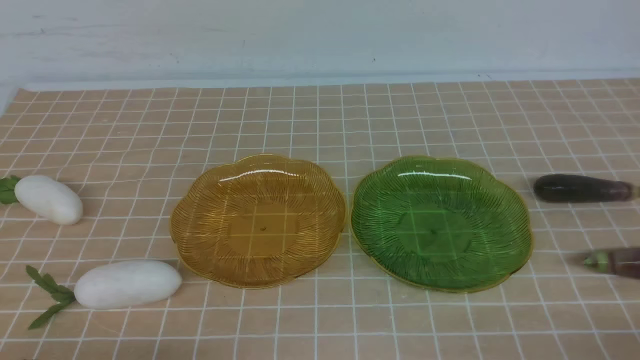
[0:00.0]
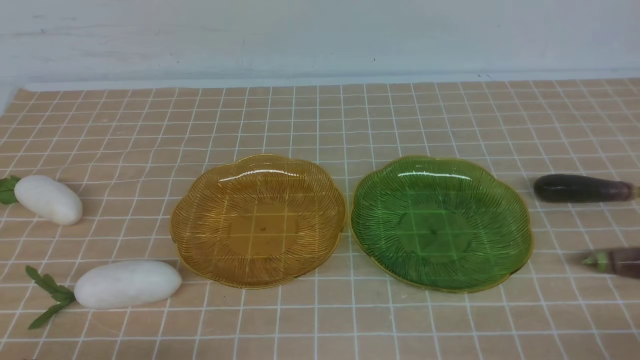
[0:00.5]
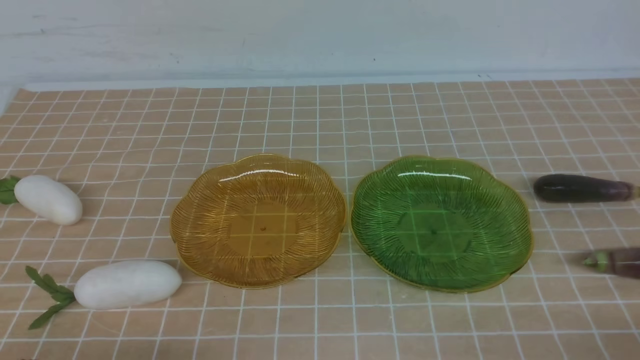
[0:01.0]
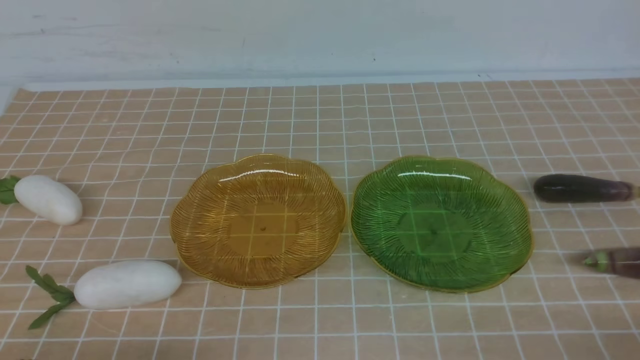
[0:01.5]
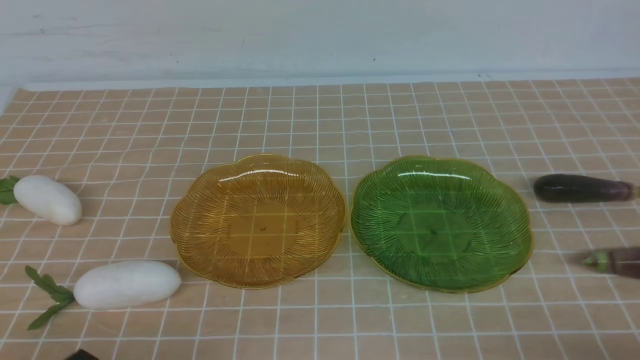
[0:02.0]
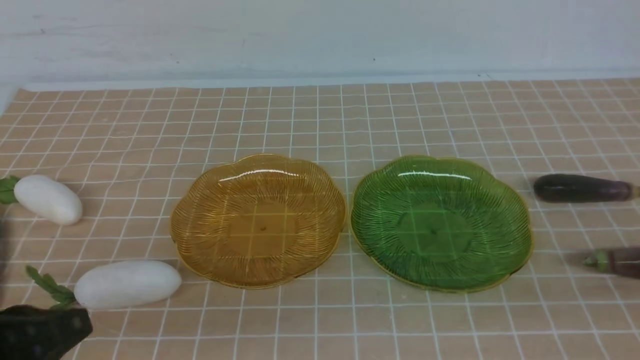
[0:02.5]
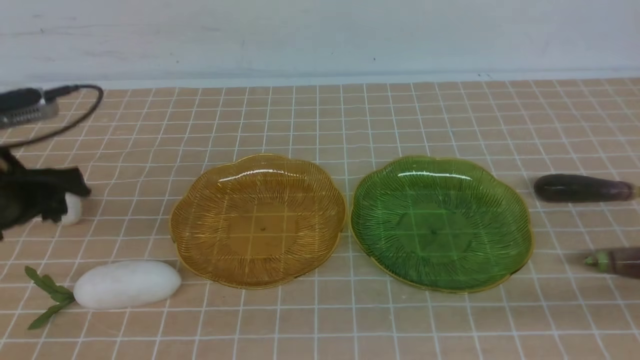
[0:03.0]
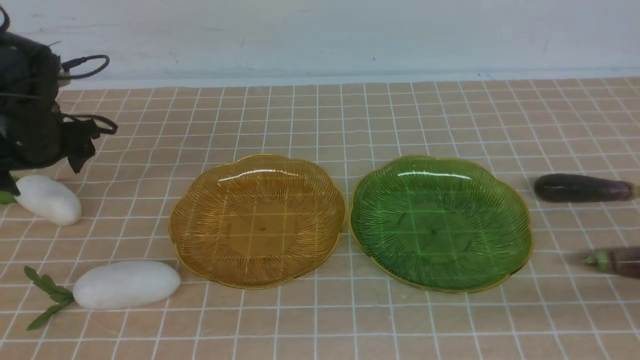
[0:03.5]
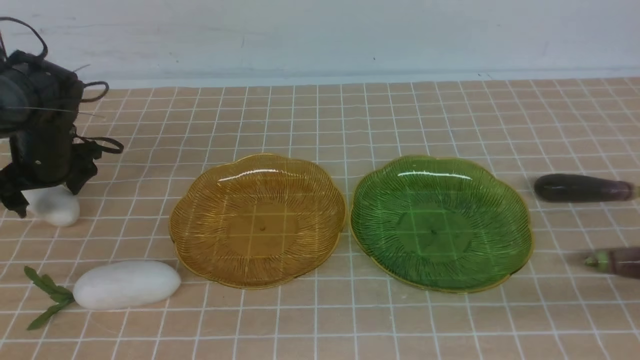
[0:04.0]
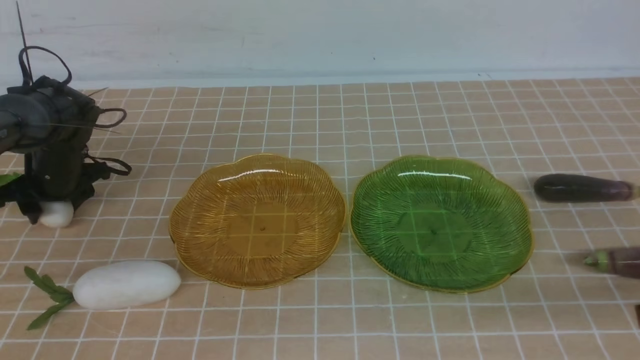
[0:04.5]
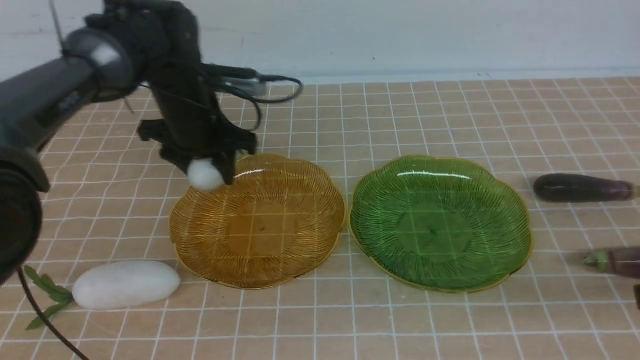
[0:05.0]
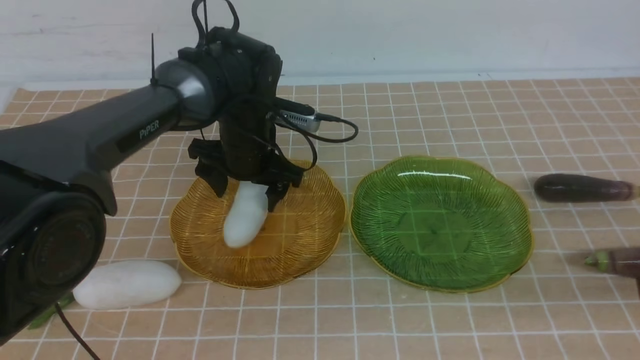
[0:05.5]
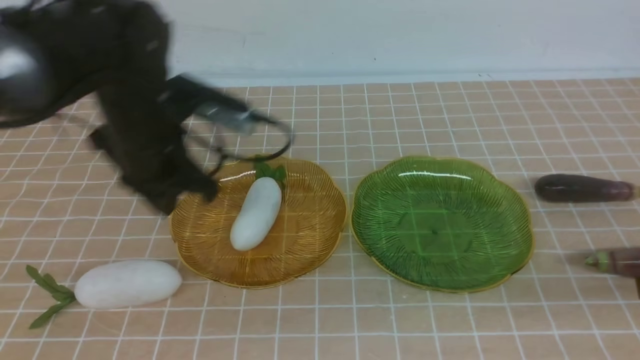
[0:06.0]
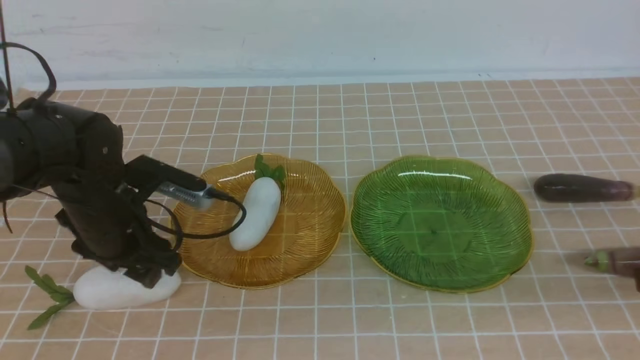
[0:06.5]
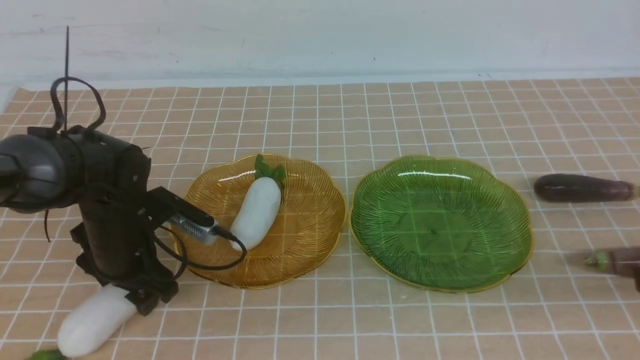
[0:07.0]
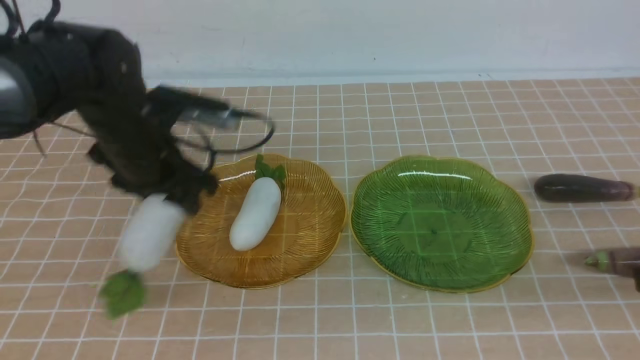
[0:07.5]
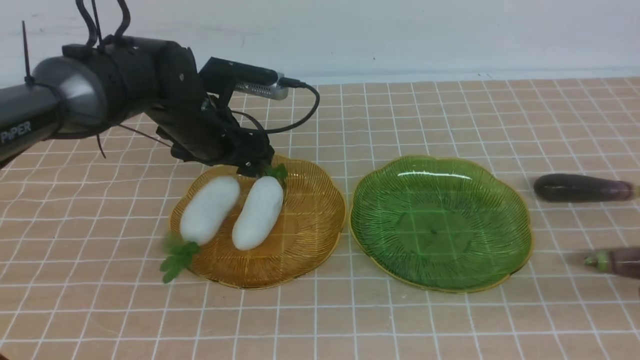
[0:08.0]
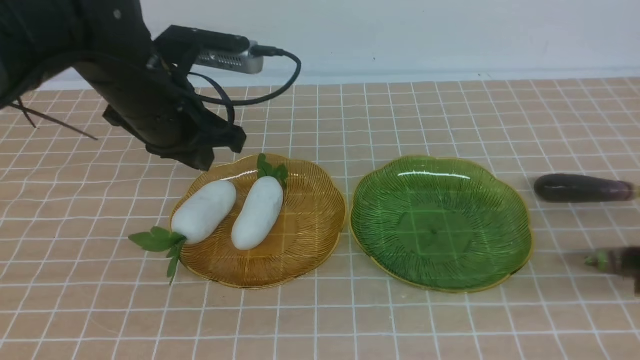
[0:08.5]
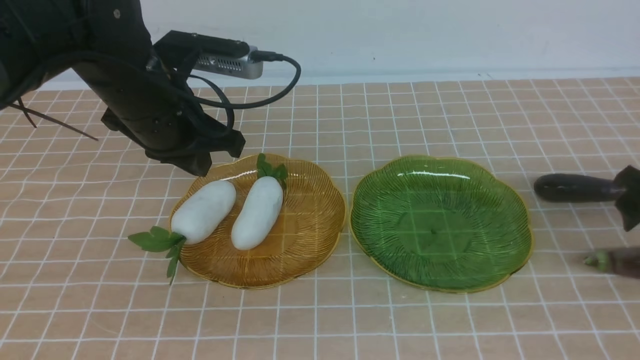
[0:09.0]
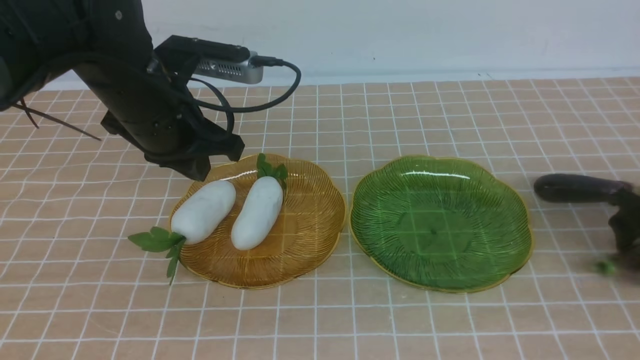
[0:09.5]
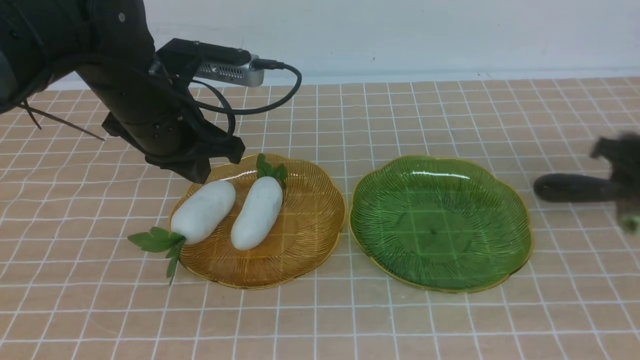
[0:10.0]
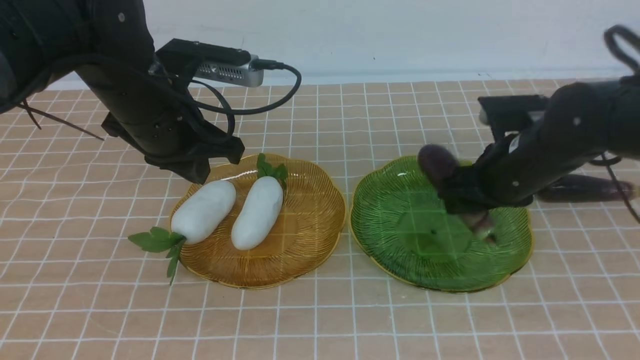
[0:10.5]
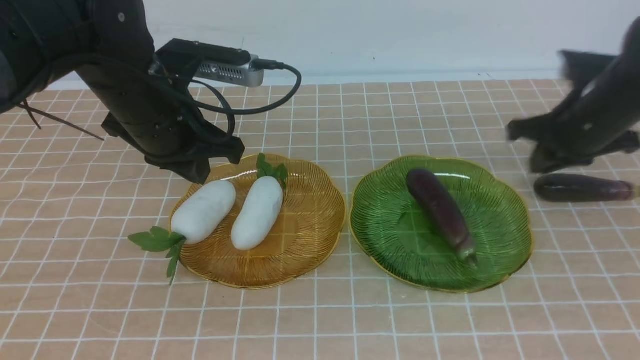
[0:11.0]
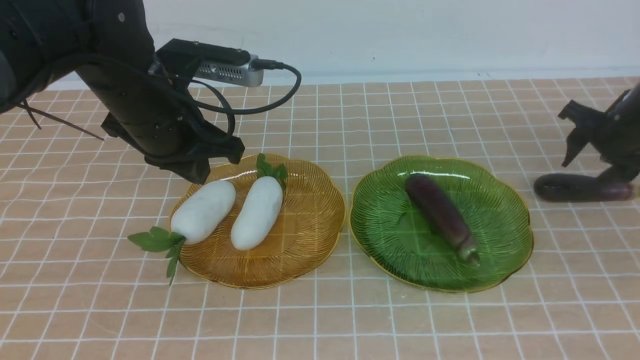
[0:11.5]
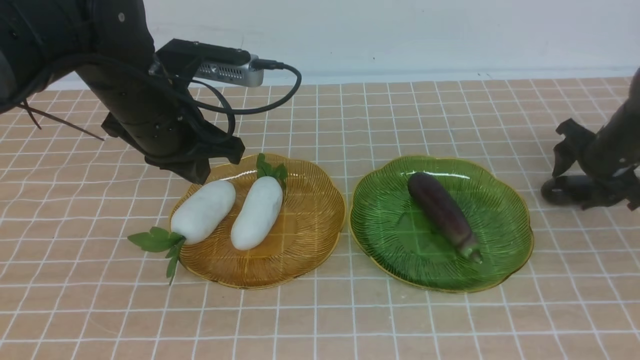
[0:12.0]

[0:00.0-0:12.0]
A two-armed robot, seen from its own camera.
Step, 0:00.0 to 0:08.0: use the left arm to grab a radish and put it into the left plate.
Step, 0:08.5 to 0:10.5: use the right arm to grab an eggplant and put it into the right plate.
0:02.0 to 0:04.0: The left gripper heads forward, covering some 40 cm, and opens up. The right gripper goes about 5 cm forward.
0:04.0 to 0:06.0: The left gripper heads to the right, backward and upward, covering roughly 20 cm, and closes up.
0:06.0 to 0:08.0: The two grippers go roughly 5 cm forward. The right gripper opens, while the left gripper opens.
0:08.0 to 0:10.0: The right gripper shifts some 20 cm forward and to the left; the left gripper closes.
0:10.0 to 0:12.0: The right gripper travels to the right and back again, approximately 15 cm each way.

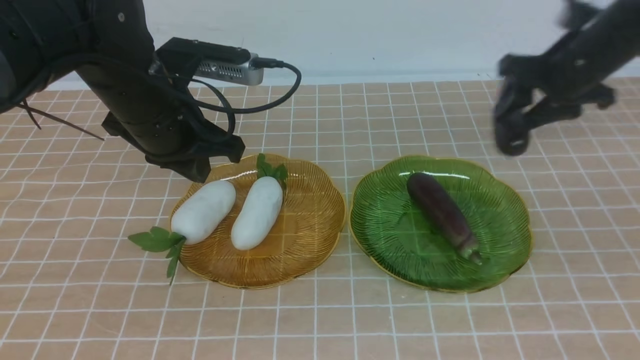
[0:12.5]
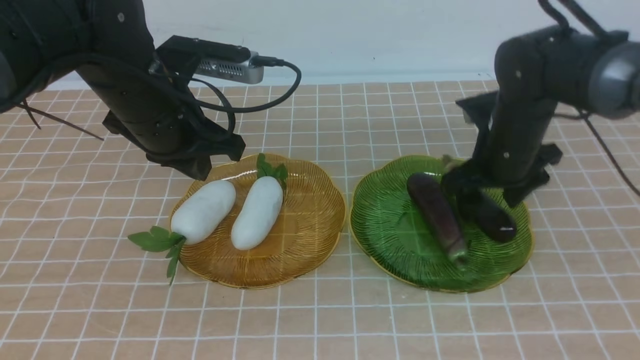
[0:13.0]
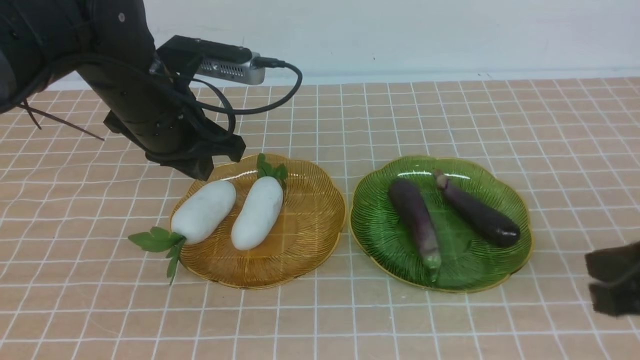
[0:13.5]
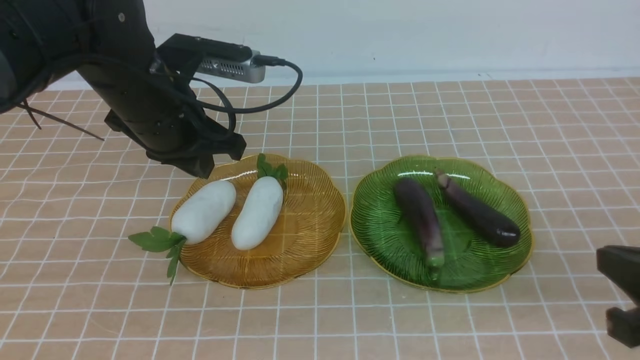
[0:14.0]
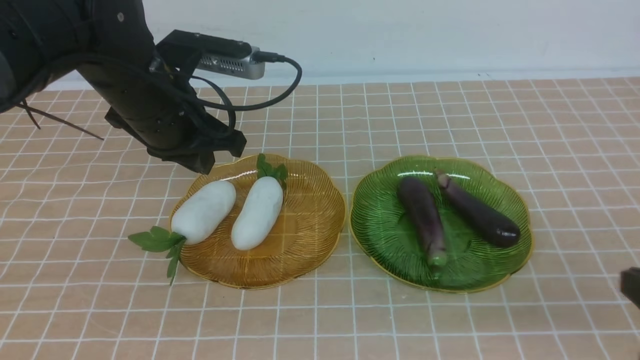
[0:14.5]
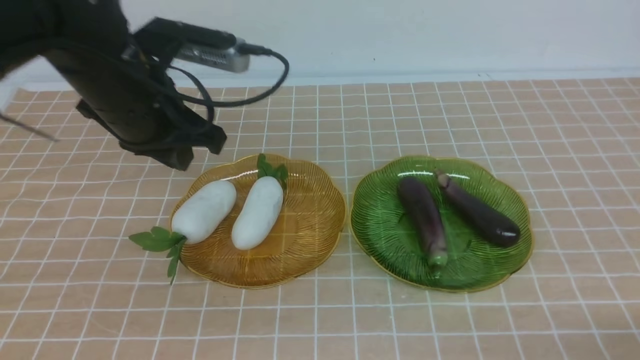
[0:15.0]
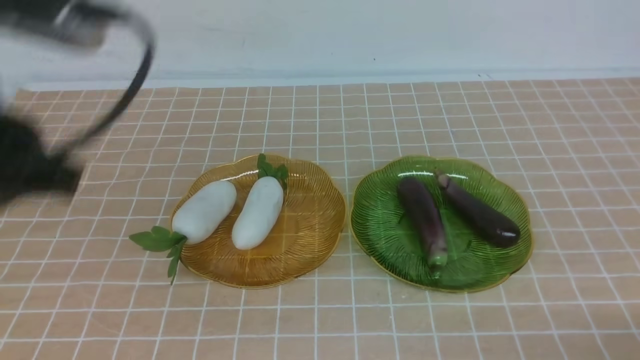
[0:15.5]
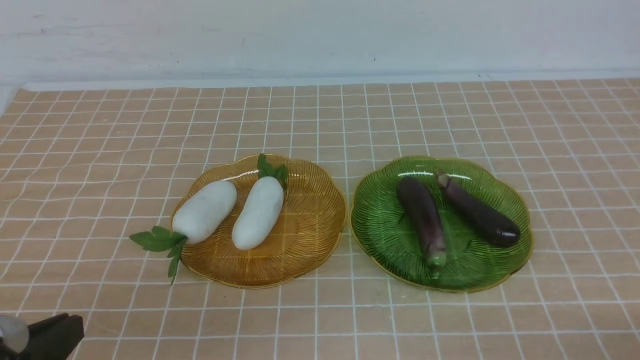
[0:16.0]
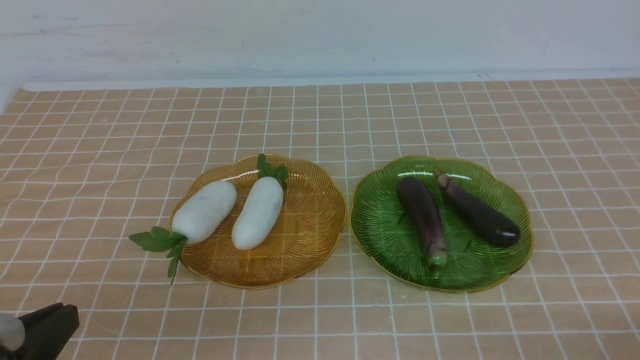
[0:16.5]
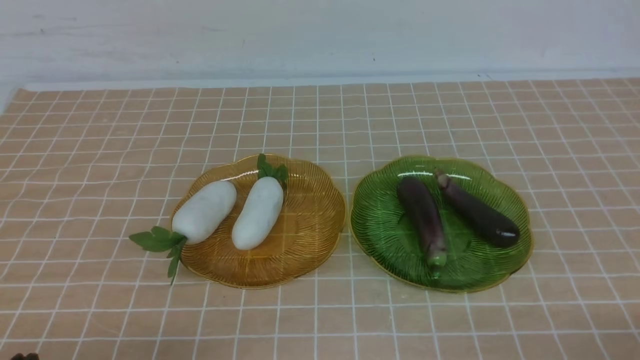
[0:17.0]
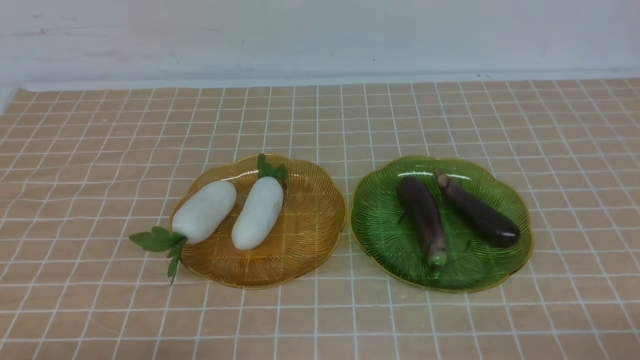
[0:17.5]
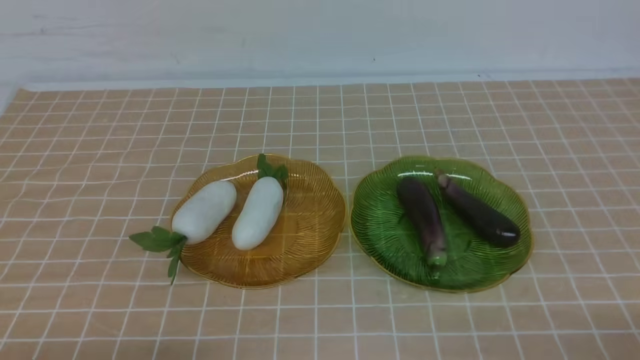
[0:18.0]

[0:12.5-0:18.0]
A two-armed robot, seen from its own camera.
0:12.5 to 0:14.5: The left gripper travels backward and upward by approximately 15 cm; the right gripper goes roughly 25 cm backward and downward, and closes its fingers.
0:14.5 to 0:16.0: The left gripper is displaced downward and backward by approximately 25 cm.
0:16.0 to 0:18.0: There are only small adjustments of the grippers.

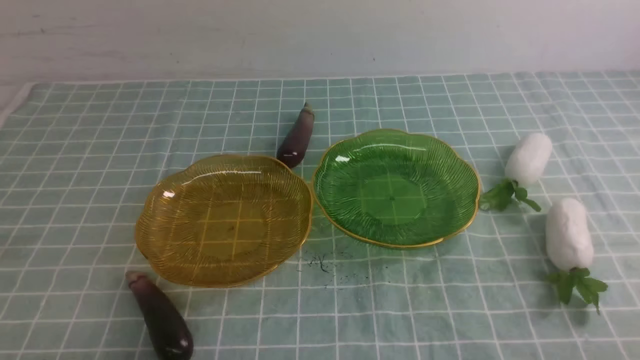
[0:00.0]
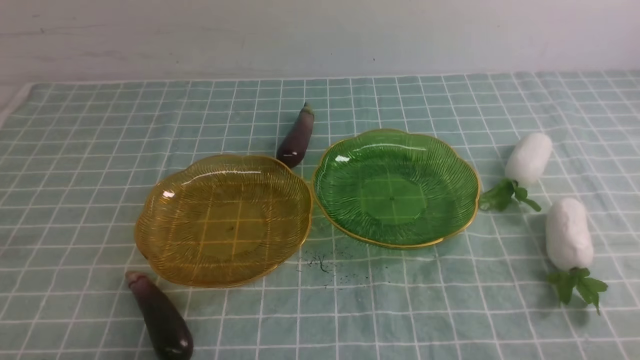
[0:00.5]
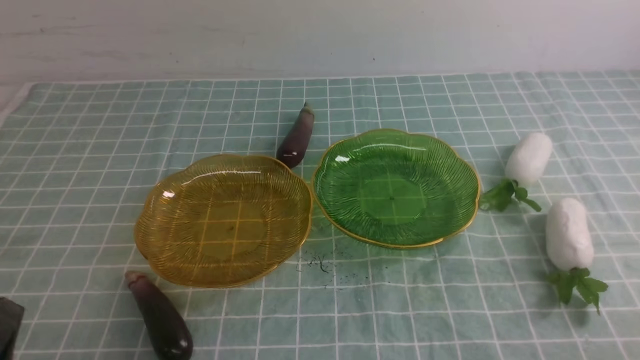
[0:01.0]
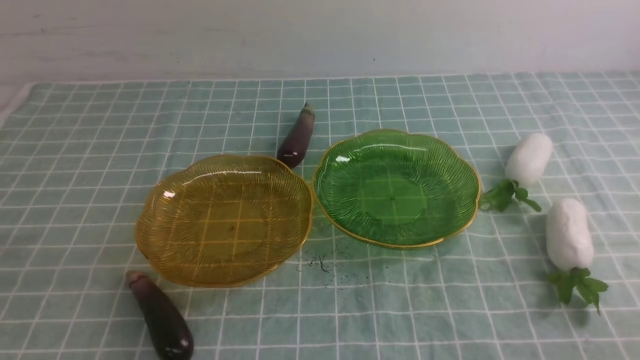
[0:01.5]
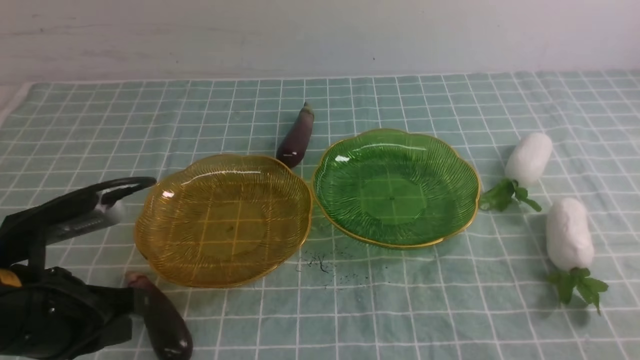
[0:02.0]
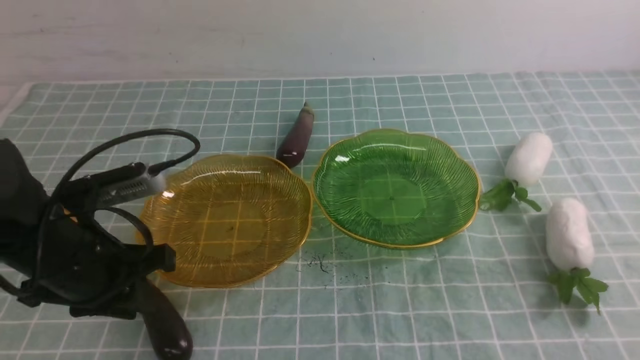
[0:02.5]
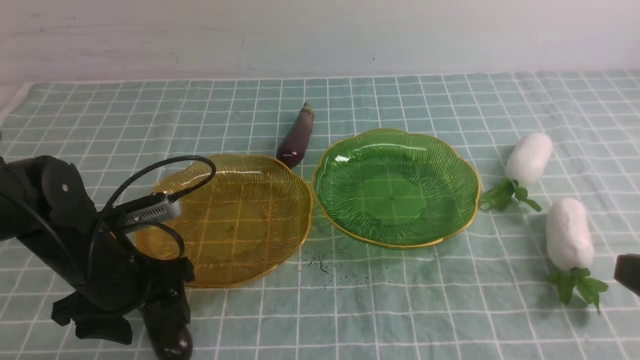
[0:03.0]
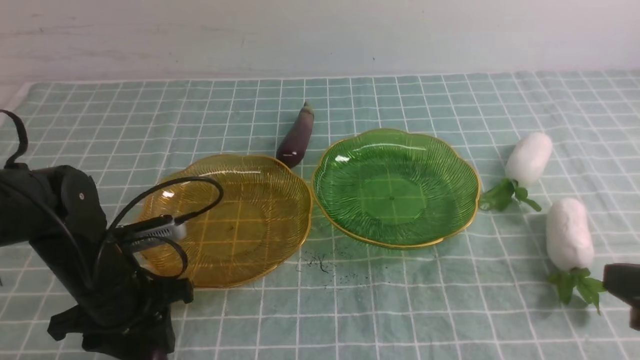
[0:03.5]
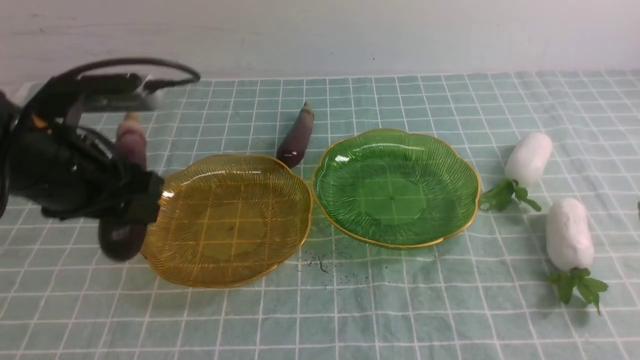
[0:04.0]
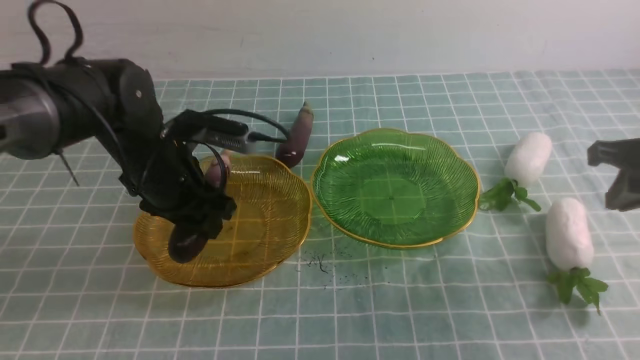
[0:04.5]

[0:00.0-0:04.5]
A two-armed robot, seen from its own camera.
0:00.0 to 0:02.0: The left gripper heads forward and upward, covering some 15 cm.
0:02.0 to 0:04.5: The left gripper heads forward, covering roughly 20 cm, and opens. The right gripper goes some 25 cm forward.
